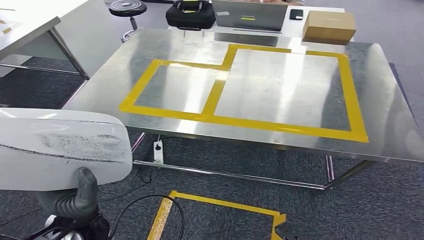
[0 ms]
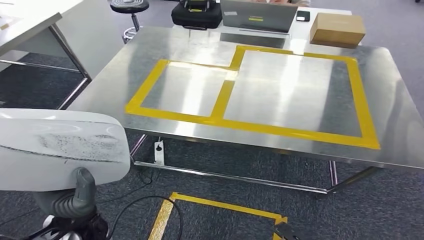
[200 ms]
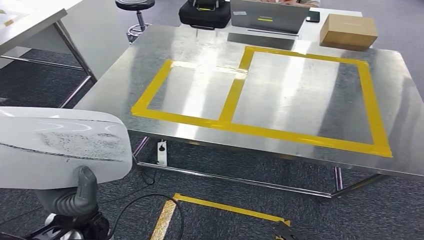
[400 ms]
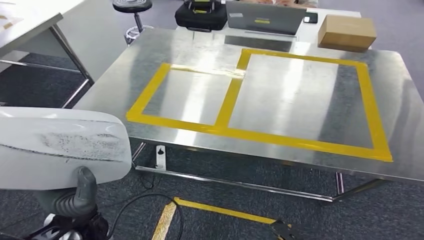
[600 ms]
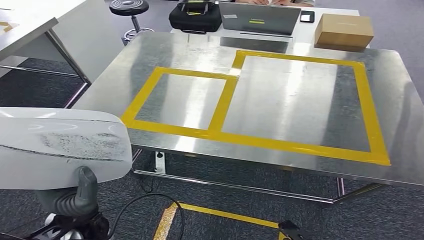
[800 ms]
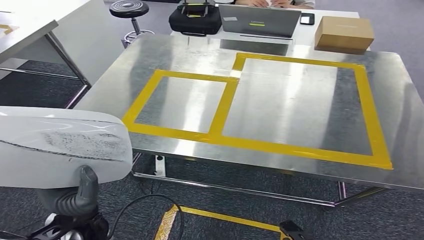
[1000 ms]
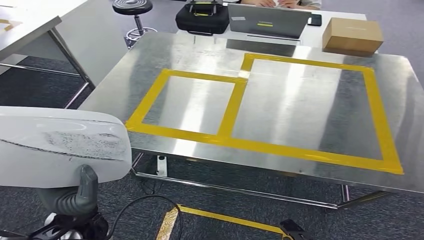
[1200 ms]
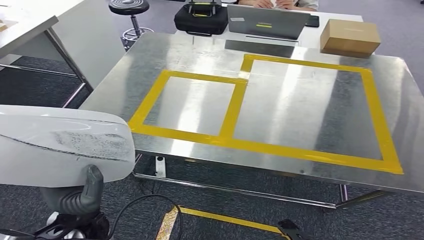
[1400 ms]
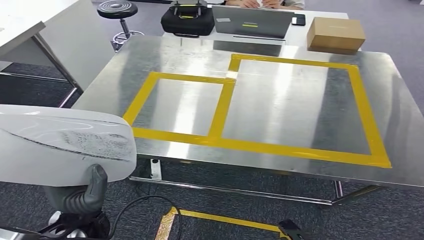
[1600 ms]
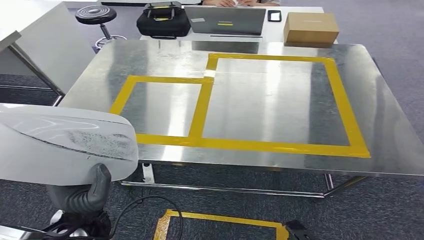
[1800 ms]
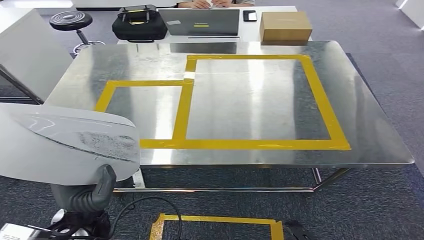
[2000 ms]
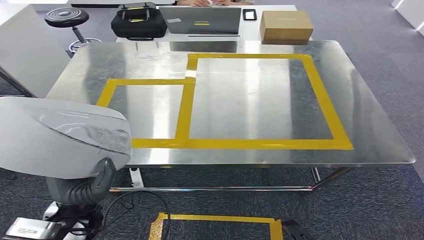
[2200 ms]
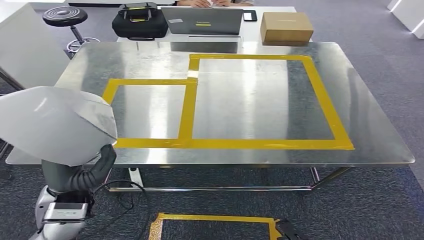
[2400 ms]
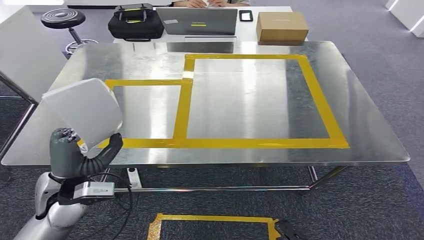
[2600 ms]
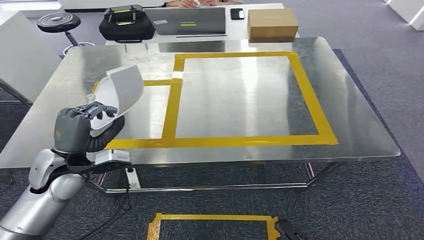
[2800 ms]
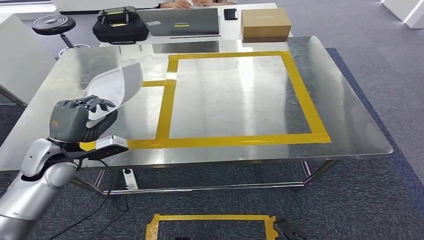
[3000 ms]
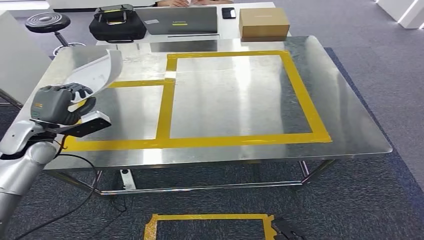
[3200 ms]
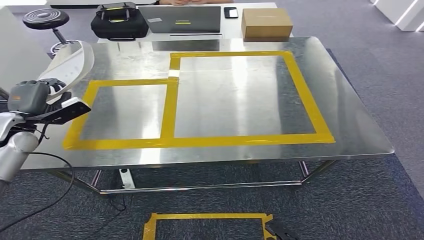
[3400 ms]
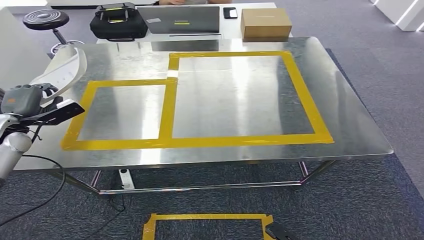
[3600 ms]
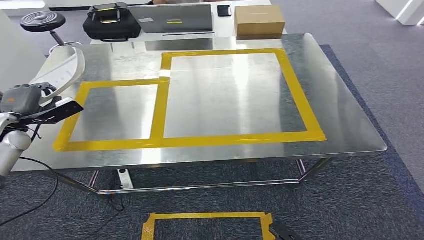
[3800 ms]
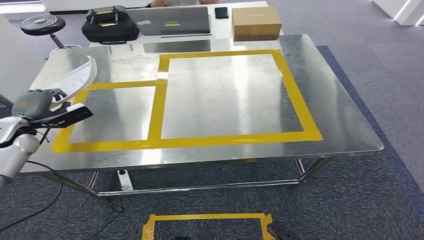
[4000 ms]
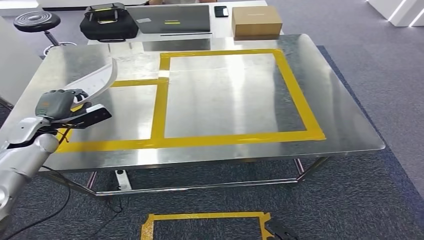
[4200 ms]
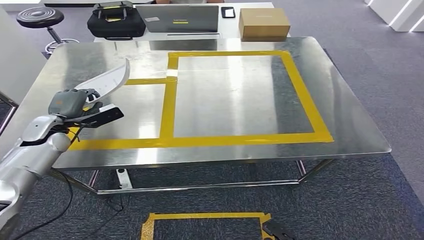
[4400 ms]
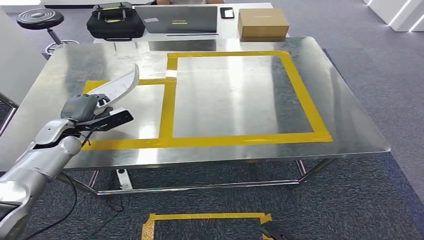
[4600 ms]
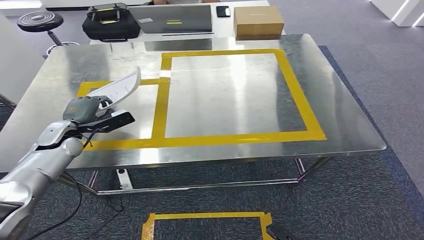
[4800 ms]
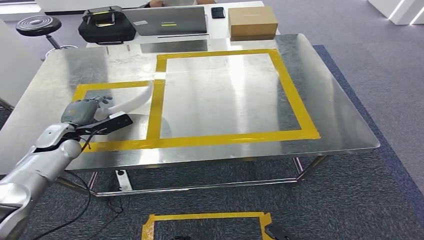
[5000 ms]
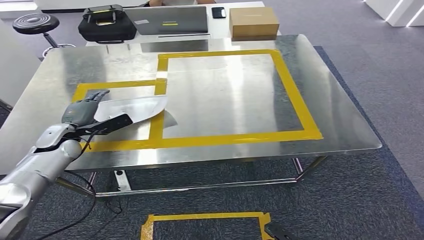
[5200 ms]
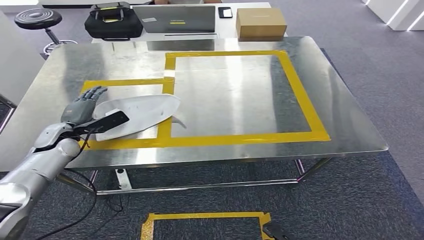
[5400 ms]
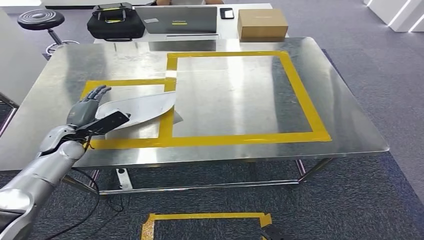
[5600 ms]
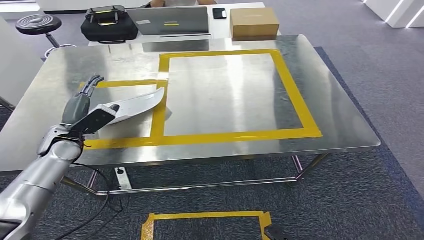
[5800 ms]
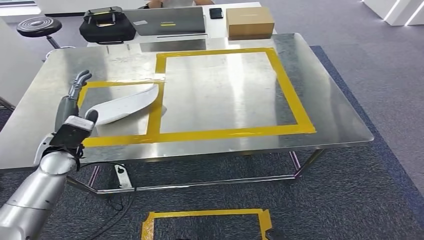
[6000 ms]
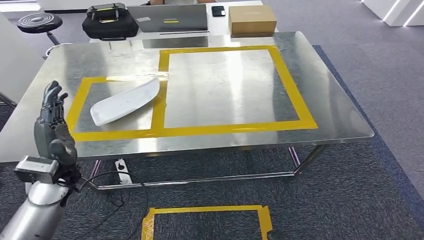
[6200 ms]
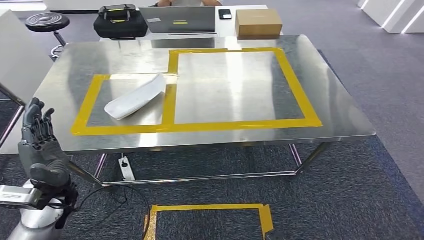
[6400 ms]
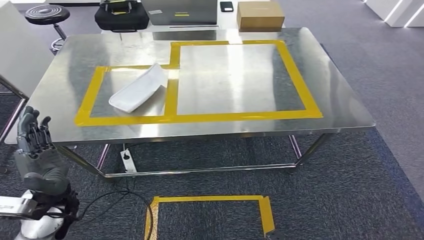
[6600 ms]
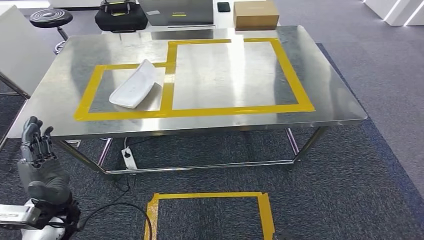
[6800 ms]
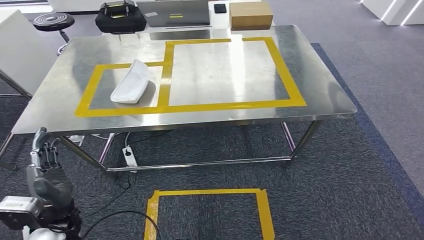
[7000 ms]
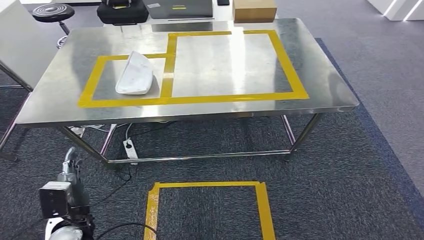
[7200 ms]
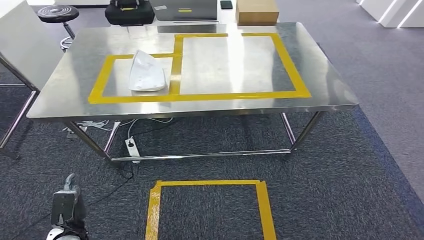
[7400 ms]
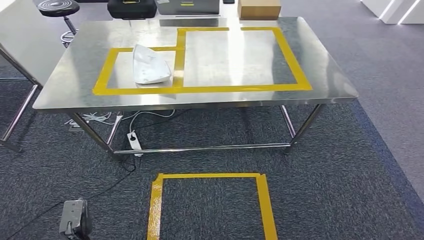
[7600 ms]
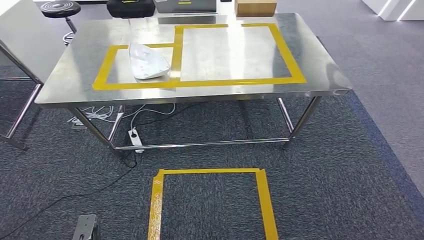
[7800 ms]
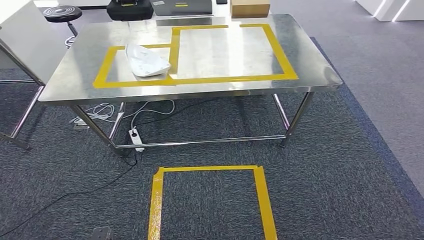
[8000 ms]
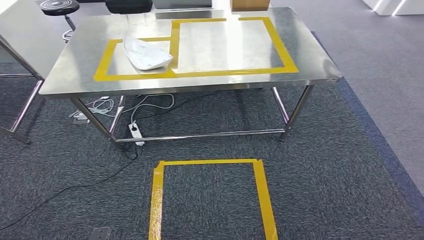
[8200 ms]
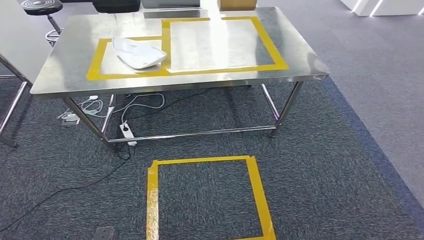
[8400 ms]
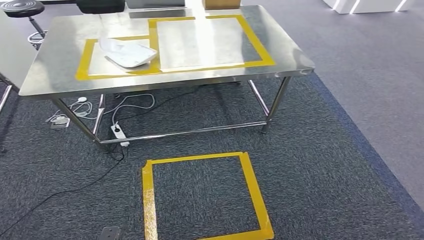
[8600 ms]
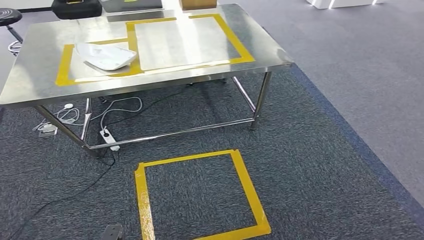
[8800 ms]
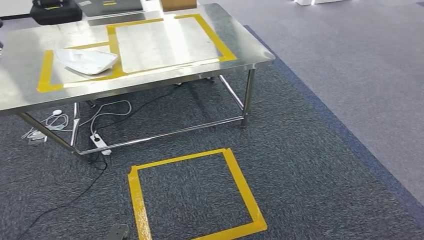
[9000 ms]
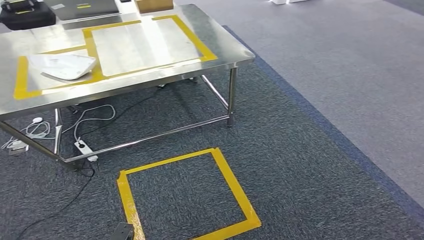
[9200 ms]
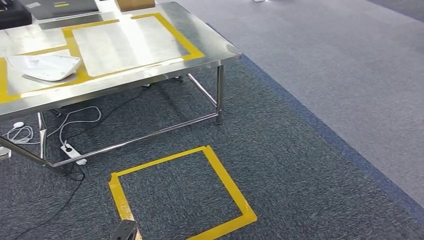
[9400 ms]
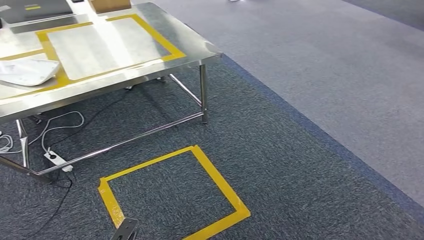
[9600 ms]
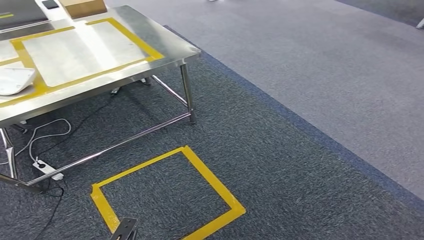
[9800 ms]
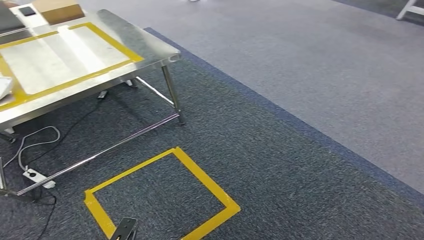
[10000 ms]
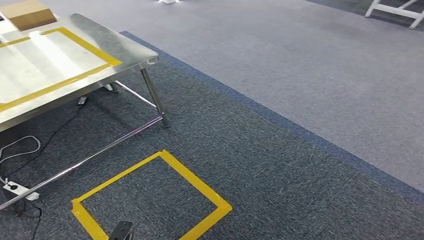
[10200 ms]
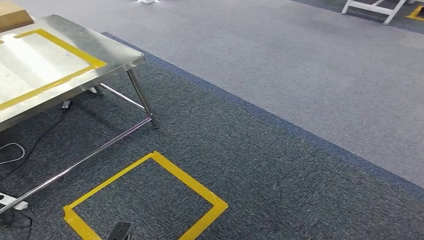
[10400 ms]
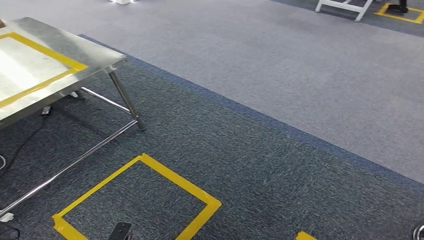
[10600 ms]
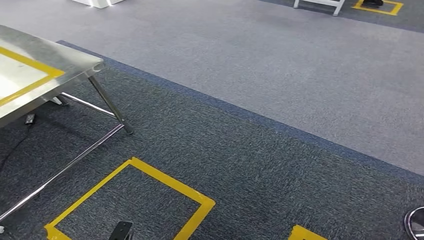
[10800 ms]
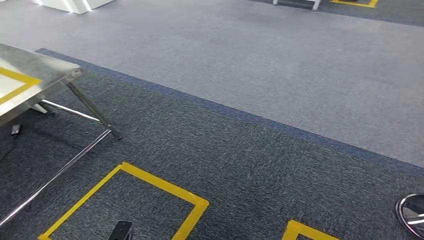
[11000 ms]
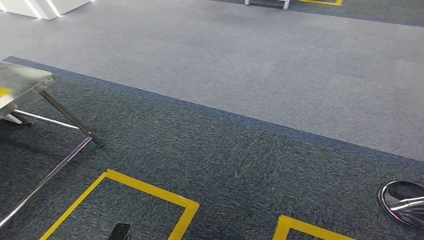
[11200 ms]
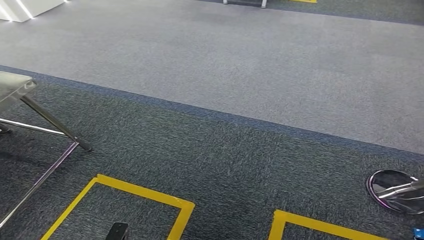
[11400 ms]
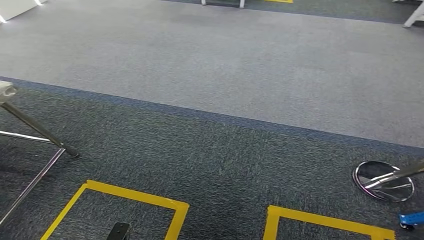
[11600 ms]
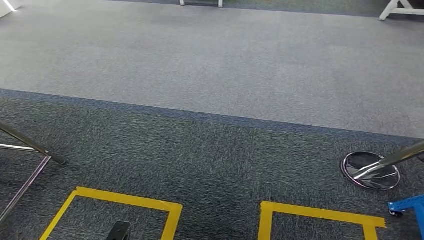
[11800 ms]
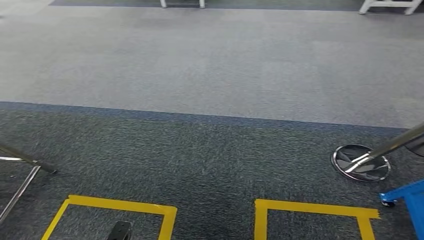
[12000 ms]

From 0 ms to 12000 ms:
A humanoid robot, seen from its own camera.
Step, from 0 ms to 5000 ms: Insert the small parts into the corresponding holes on the workbench.

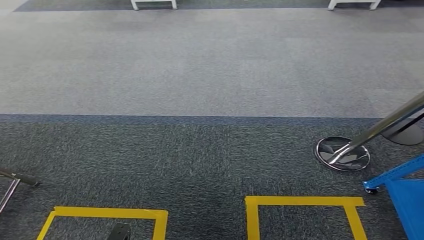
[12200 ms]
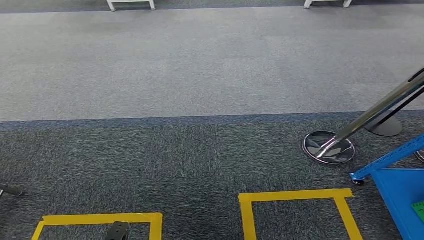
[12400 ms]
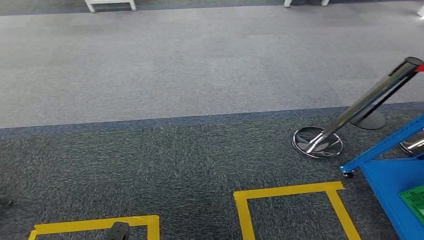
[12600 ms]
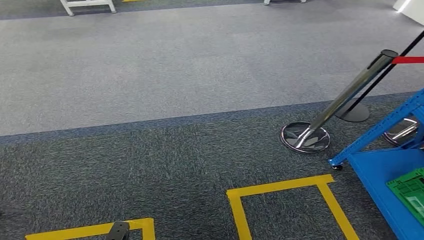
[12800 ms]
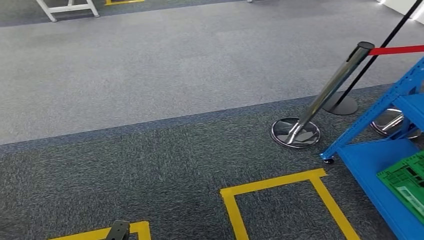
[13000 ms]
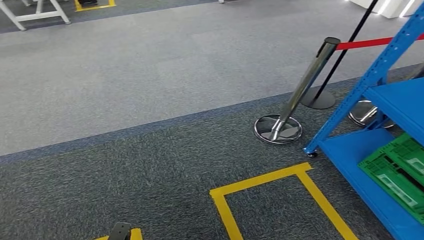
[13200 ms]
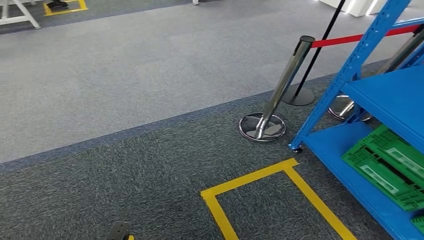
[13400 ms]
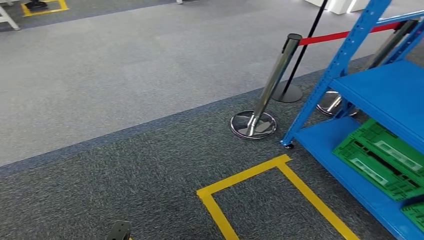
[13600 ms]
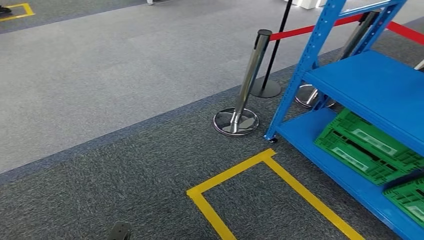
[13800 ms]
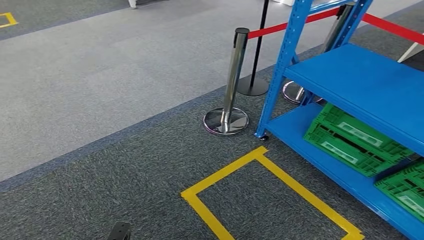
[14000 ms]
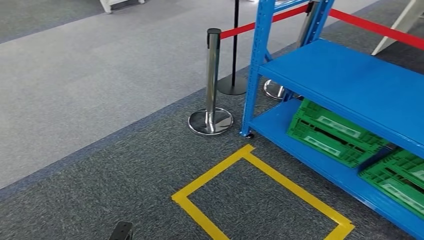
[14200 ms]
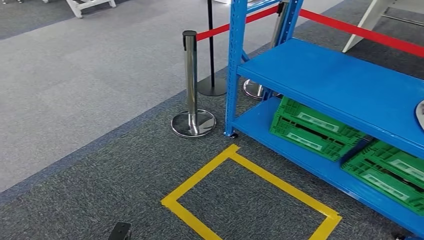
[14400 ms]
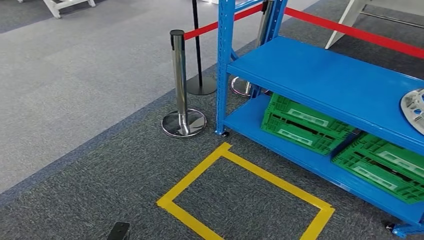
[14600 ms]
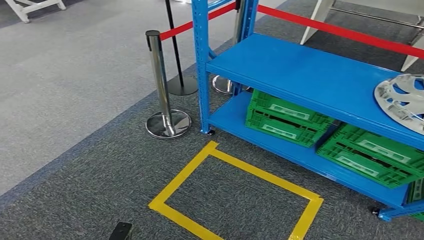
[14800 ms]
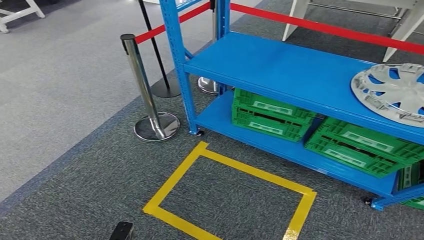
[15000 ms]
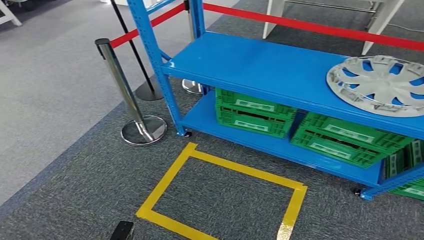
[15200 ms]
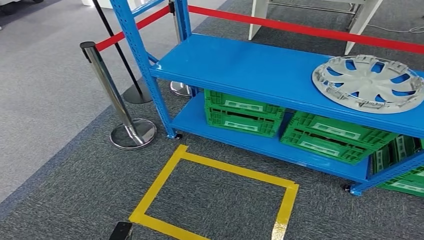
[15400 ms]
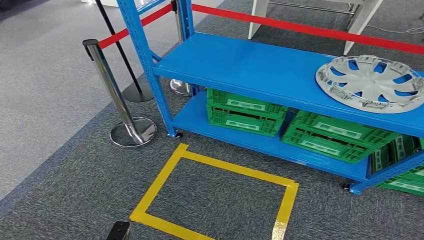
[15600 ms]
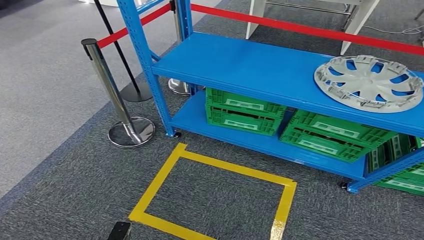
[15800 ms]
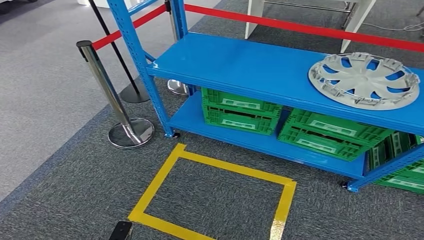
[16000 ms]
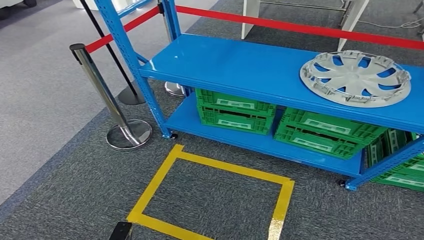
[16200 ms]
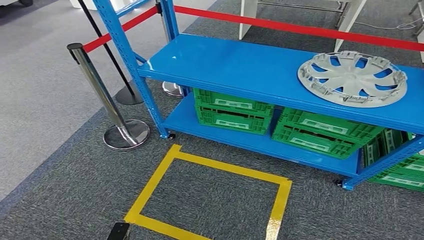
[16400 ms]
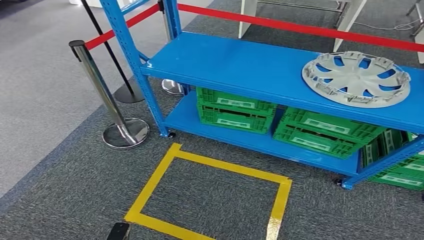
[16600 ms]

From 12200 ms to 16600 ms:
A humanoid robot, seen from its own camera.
Step, from 12200 ms to 16400 ms: Move to the initial position at the workbench.

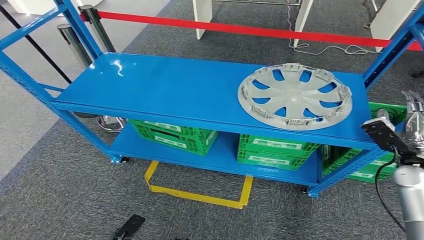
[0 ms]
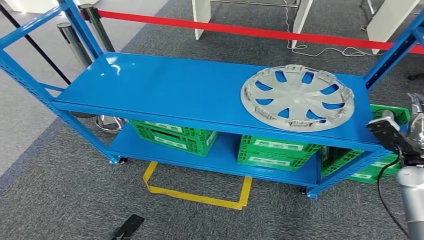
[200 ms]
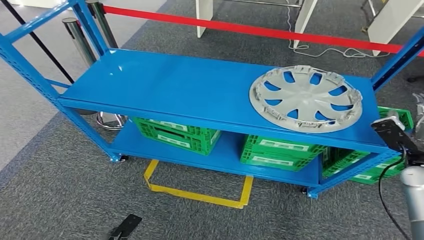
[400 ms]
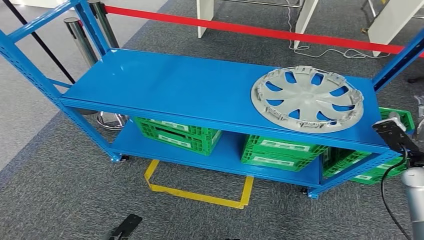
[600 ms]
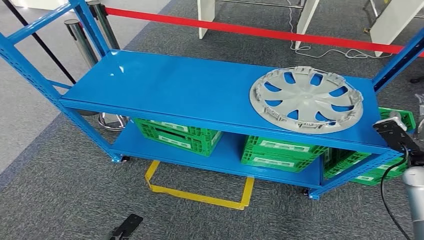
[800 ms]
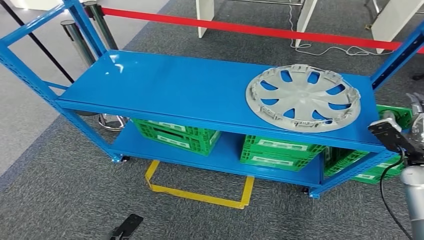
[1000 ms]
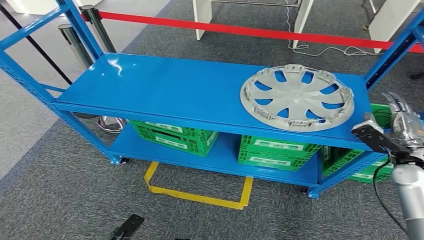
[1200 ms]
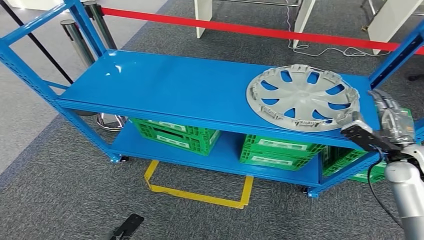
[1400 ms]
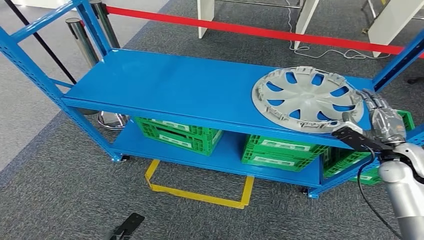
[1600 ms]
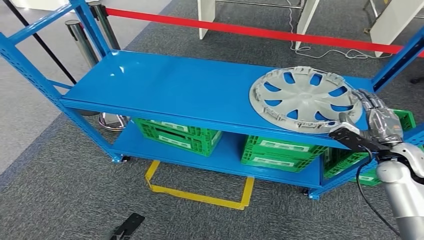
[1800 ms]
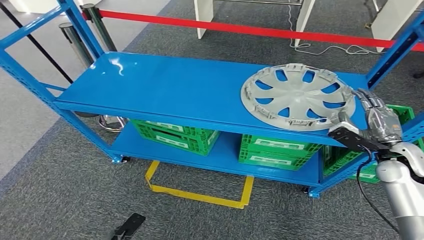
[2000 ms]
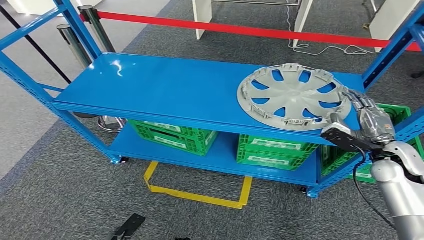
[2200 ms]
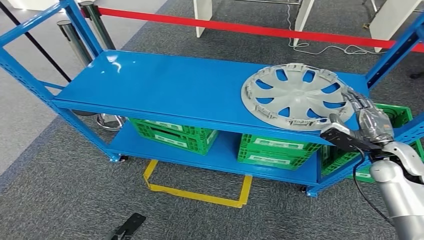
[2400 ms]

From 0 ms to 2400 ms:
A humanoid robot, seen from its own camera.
From 0 ms to 1200 ms: The hands stay close to where they were, moving slightly.
From 1200 ms to 2400 ms: The right hand is displaced to the left by some 5 cm.
